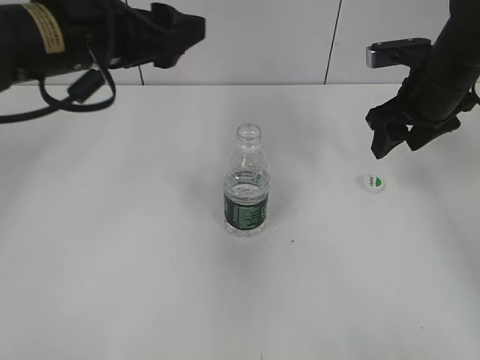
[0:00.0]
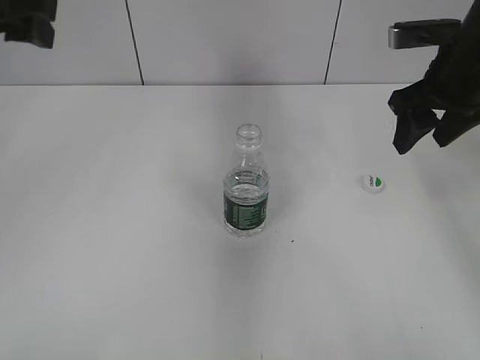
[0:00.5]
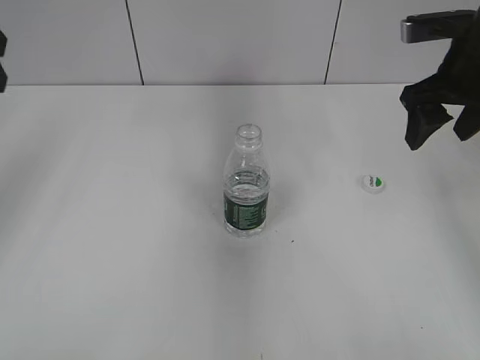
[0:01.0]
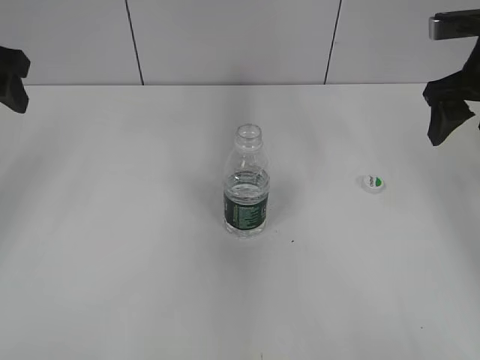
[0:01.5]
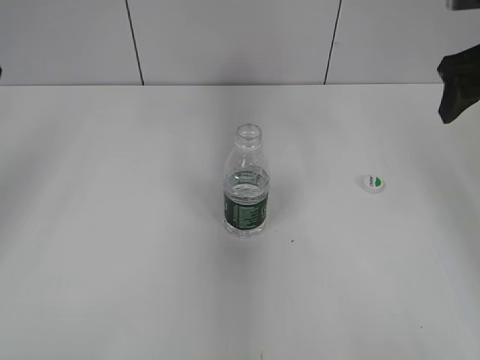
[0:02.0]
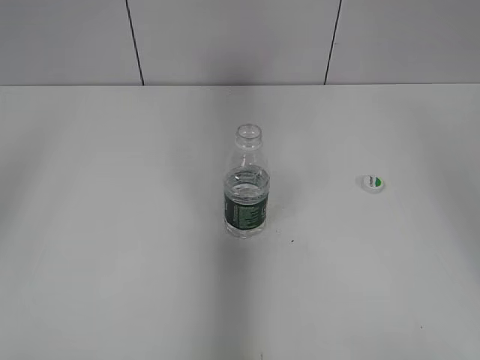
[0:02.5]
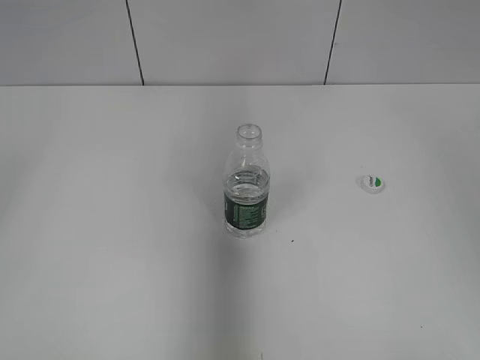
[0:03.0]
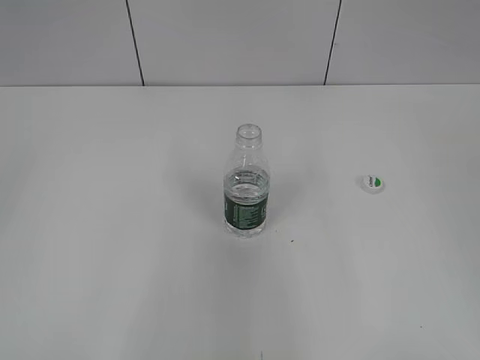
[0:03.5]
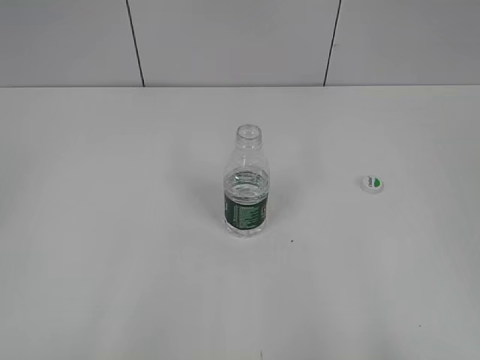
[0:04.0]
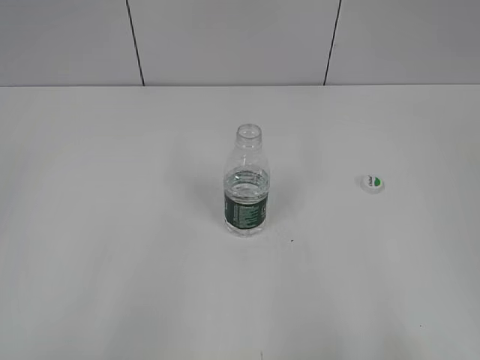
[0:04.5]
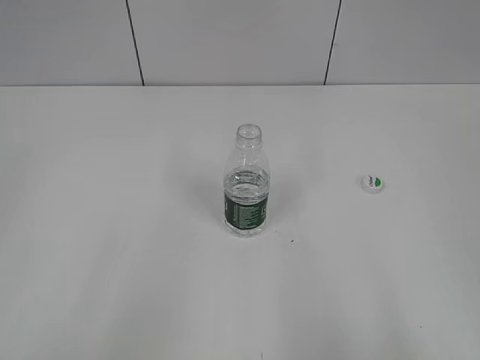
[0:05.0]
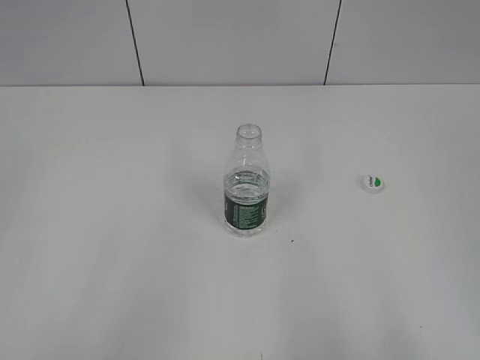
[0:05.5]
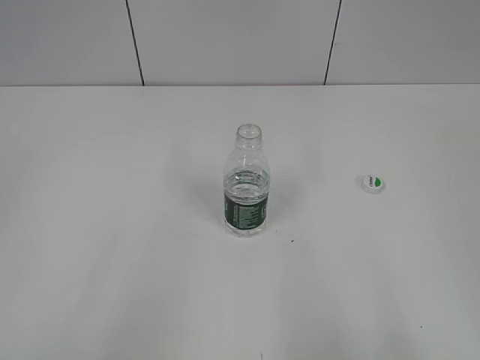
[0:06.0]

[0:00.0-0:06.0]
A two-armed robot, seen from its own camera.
0:00.0 to 0:02.0: The left gripper travels to the left by roughly 15 cm. Meanwhile the right gripper moves upward, some 10 cm.
0:02.0 to 0:04.0: The two grippers go roughly 35 cm backward.
